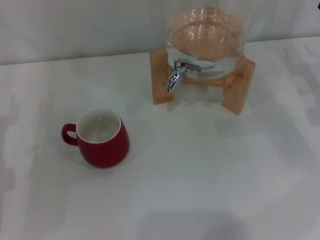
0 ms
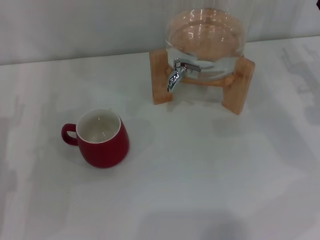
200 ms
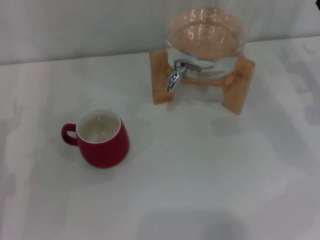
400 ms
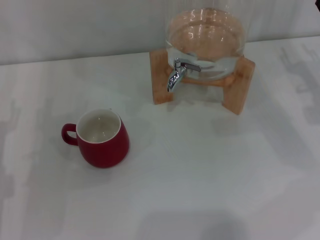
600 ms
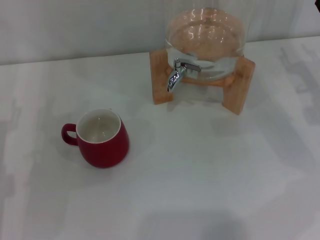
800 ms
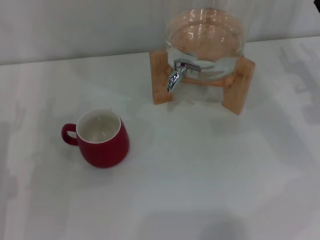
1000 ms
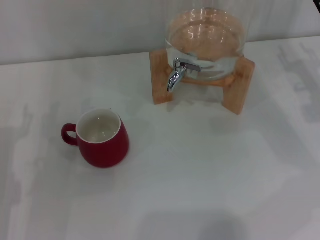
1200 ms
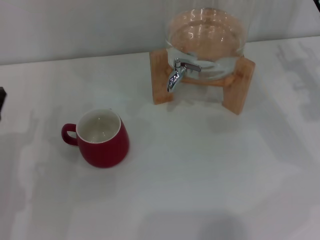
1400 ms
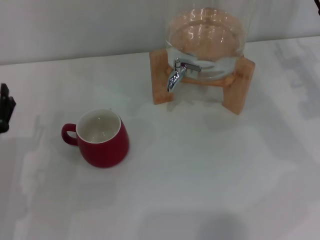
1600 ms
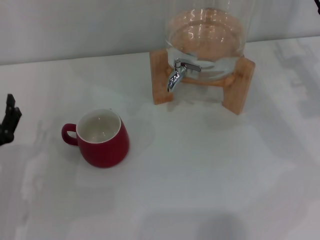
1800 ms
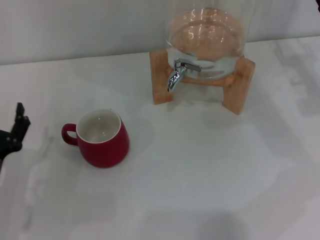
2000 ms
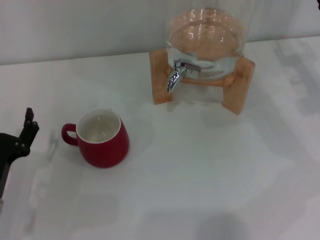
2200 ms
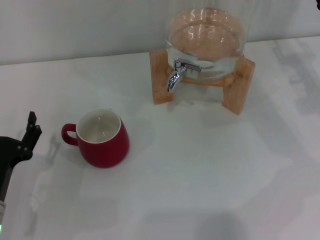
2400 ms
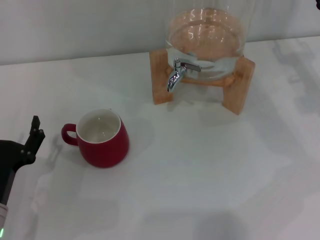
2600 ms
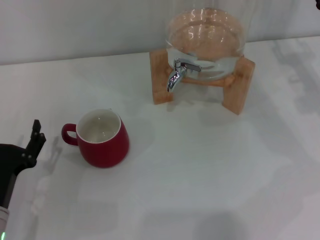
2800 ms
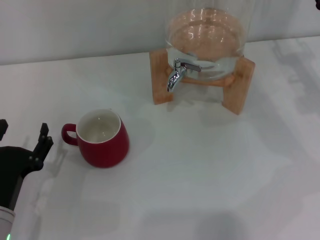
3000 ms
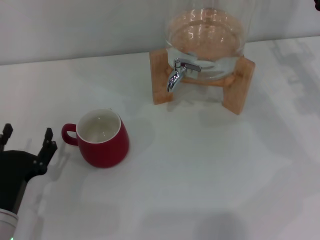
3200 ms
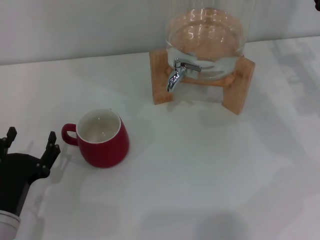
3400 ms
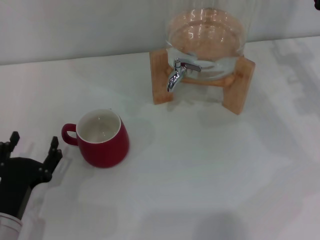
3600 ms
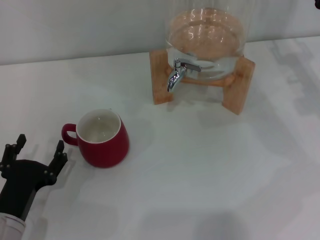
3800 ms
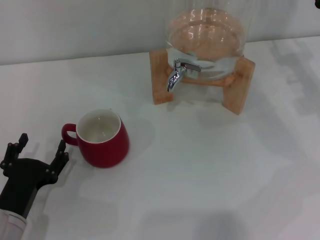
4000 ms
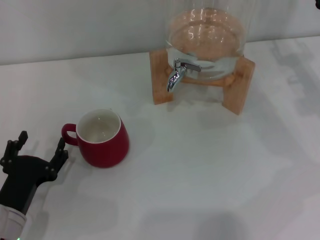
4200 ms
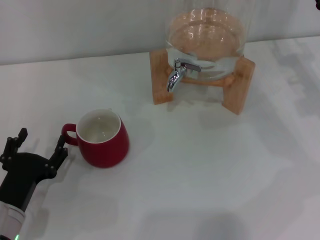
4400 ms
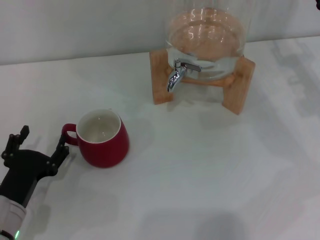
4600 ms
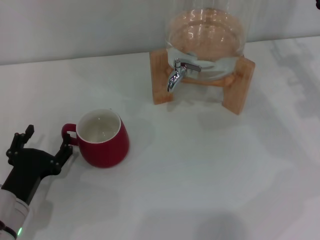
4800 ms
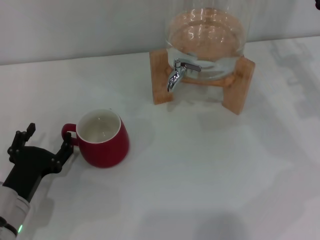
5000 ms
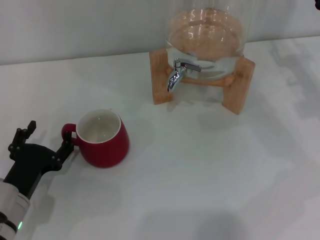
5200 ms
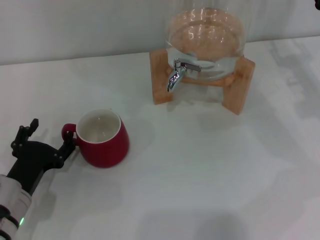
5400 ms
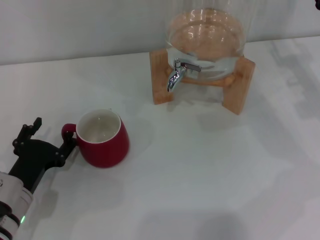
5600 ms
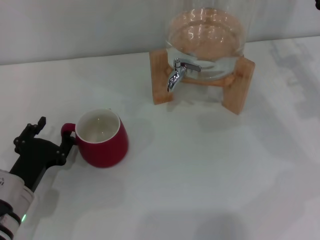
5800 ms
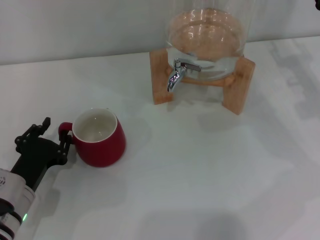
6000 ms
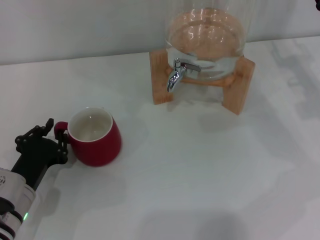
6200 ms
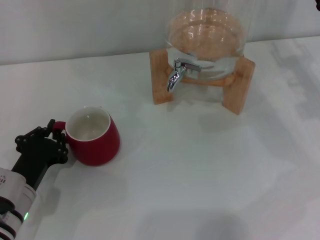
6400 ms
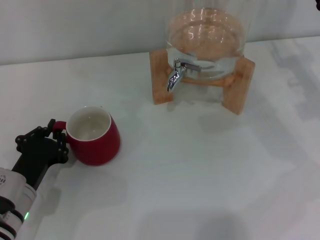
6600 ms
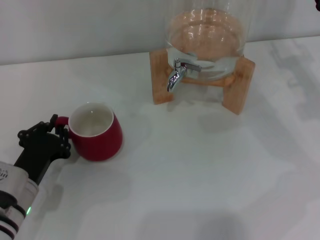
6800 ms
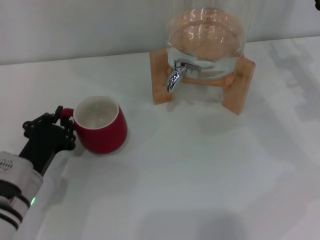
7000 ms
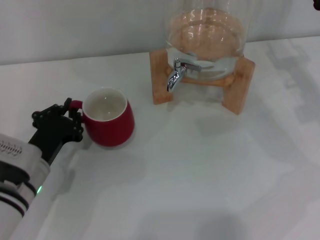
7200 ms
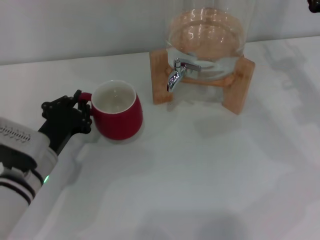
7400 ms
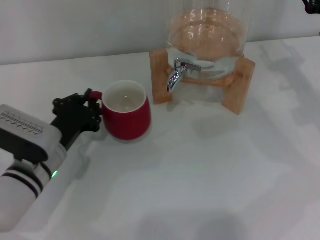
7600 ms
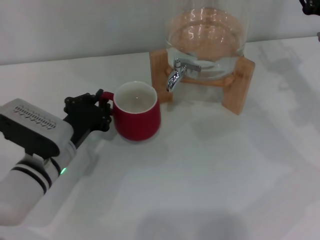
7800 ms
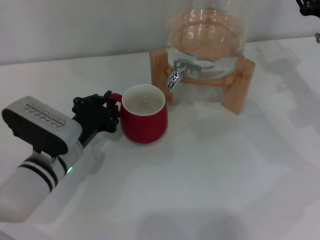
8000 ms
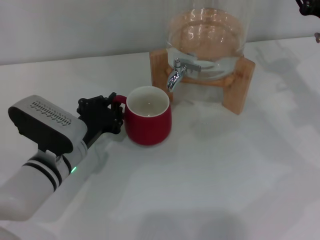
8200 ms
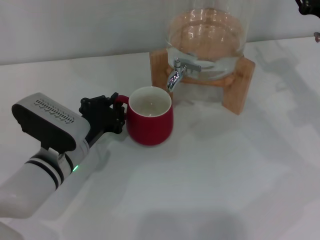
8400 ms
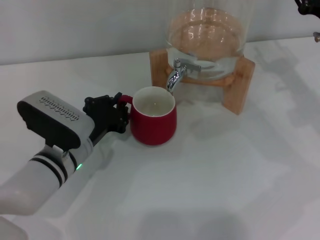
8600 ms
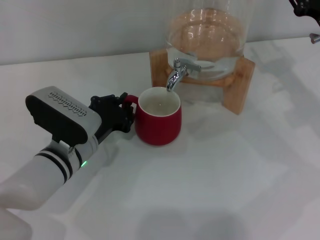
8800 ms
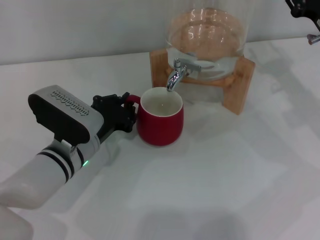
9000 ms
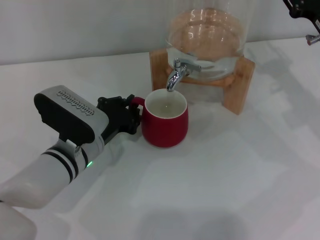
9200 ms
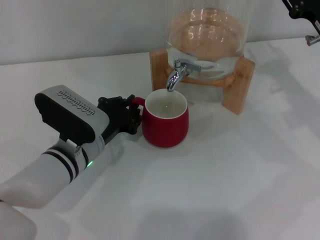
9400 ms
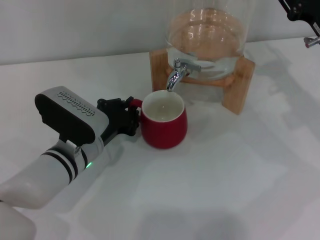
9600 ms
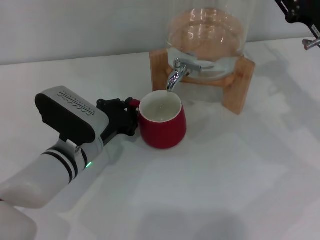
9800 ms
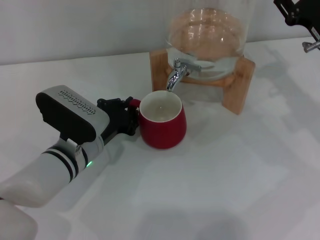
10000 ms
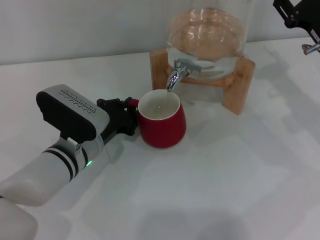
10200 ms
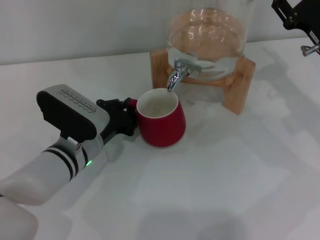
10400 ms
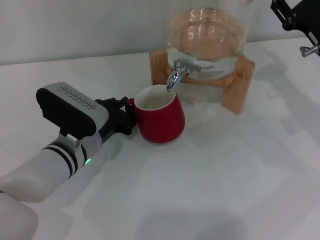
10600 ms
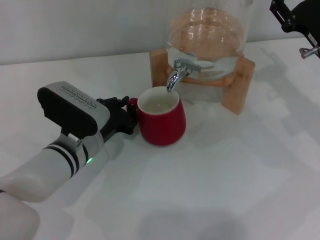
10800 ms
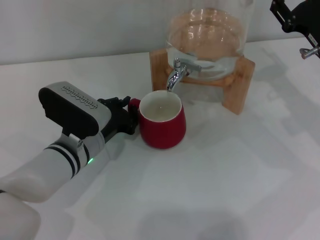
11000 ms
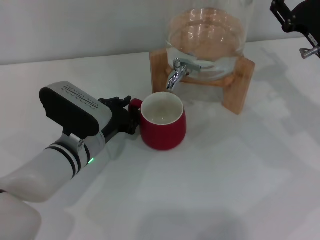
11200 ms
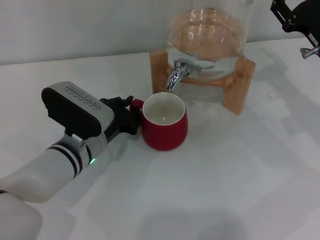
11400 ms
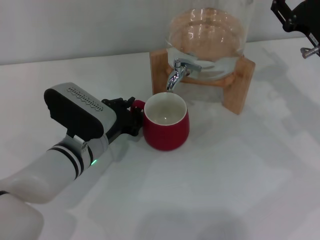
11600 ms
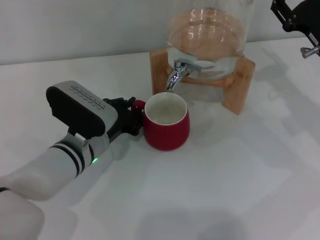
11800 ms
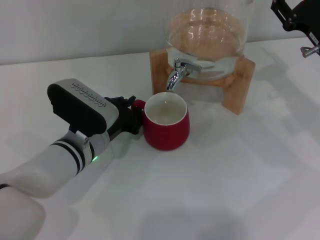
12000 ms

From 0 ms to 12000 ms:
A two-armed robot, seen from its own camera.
Task of the whole recording: the left gripper pick up the red cup and place it horizontally under the faucet, the right gripper turn on the faucet to fill the cup, and then turn off the faucet.
From 0 ms to 1600 ms: The left gripper moves some 5 cm.
From 1600 ms to 3000 ms: The left gripper changes place by about 5 cm.
From 3000 ms to 6000 ms: There are only small adjustments of the grippers.
From 6000 ms to 7600 ms: The left gripper goes roughly 5 cm forward, and closes its fingers.
From 7600 ms to 9000 ms: The left gripper shifts by roughly 5 cm.
From 9000 ms to 10400 ms: Neither gripper changes place.
From 10400 ms to 12000 ms: Both grippers stay put.

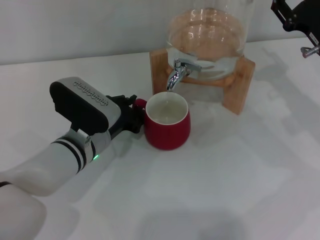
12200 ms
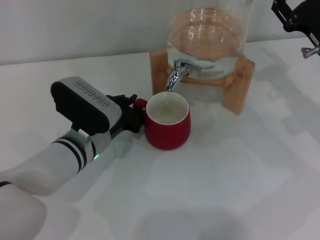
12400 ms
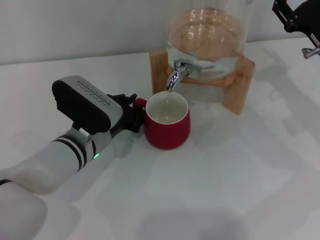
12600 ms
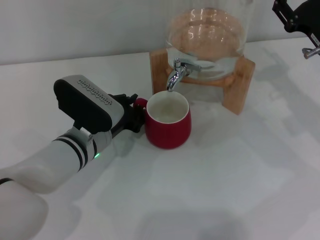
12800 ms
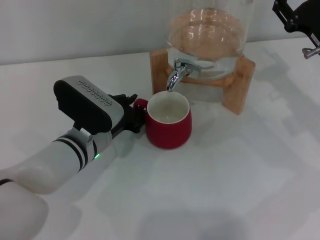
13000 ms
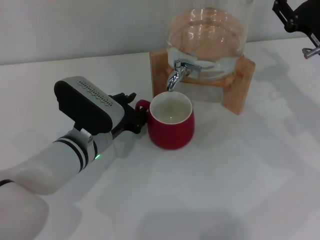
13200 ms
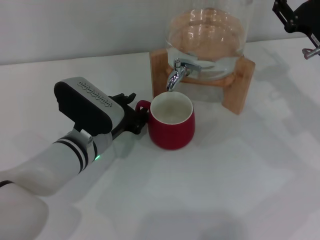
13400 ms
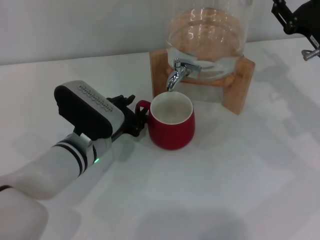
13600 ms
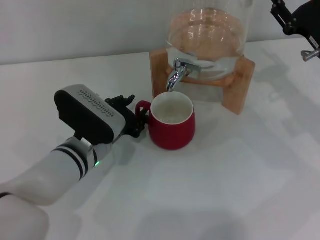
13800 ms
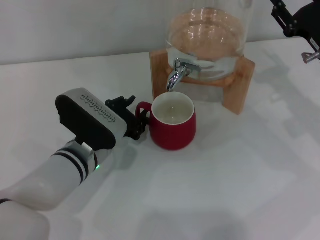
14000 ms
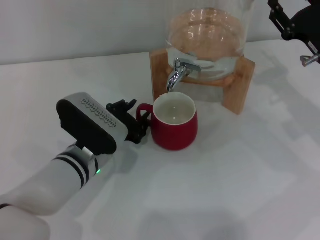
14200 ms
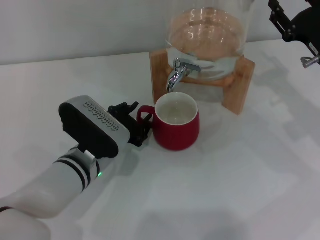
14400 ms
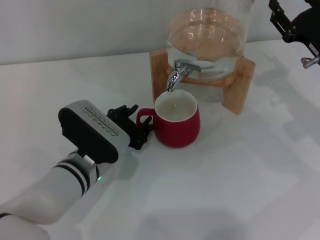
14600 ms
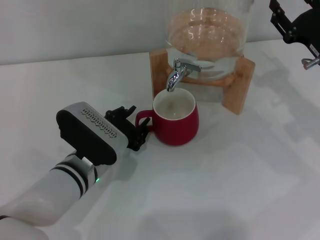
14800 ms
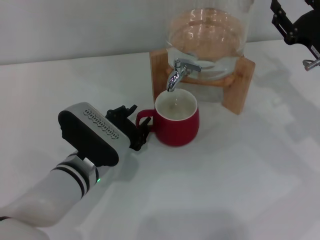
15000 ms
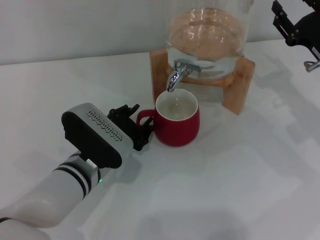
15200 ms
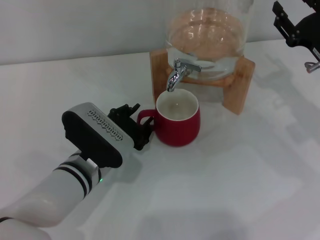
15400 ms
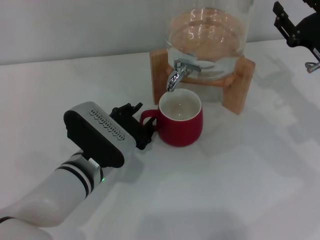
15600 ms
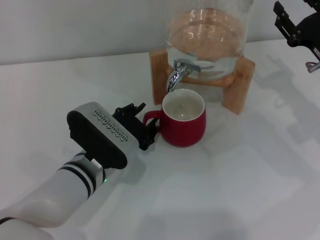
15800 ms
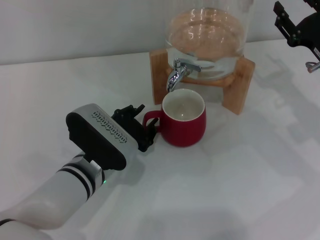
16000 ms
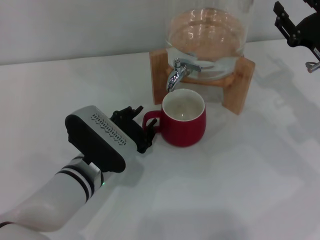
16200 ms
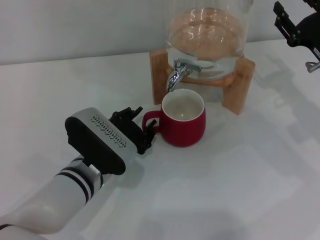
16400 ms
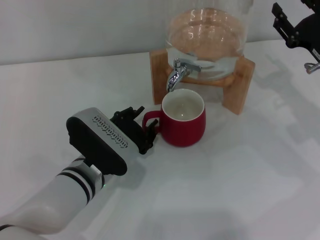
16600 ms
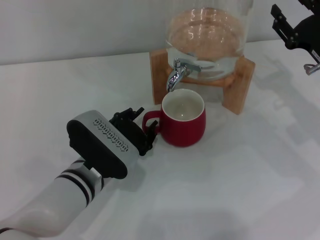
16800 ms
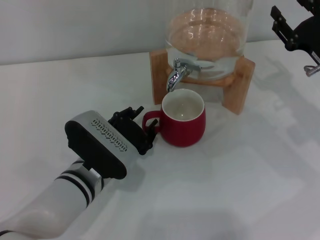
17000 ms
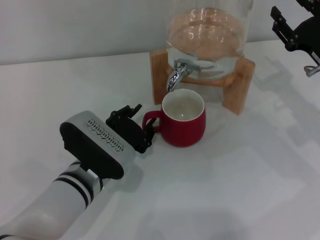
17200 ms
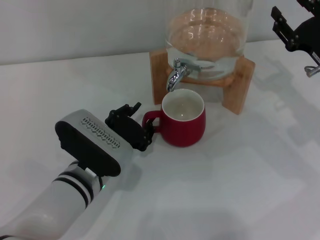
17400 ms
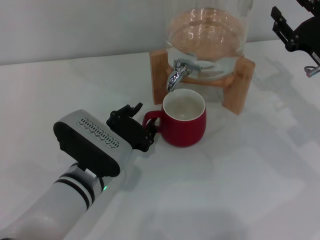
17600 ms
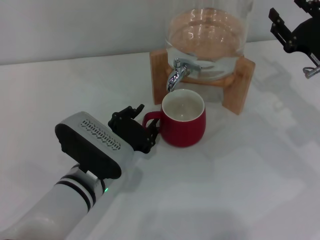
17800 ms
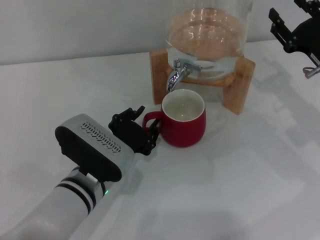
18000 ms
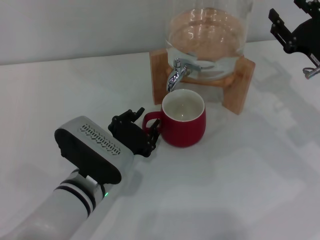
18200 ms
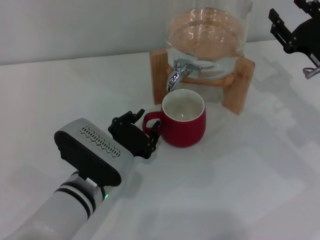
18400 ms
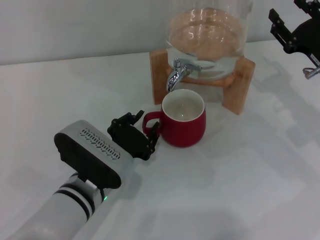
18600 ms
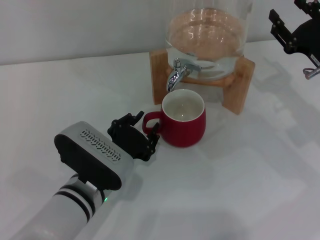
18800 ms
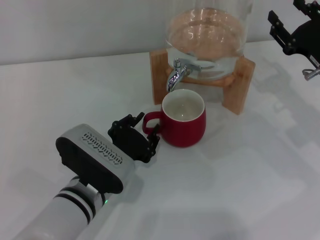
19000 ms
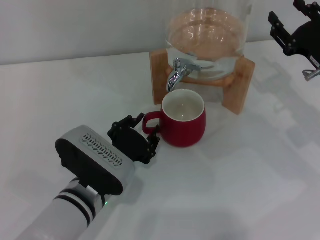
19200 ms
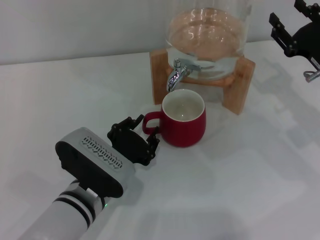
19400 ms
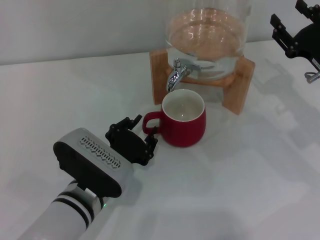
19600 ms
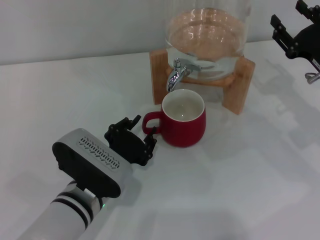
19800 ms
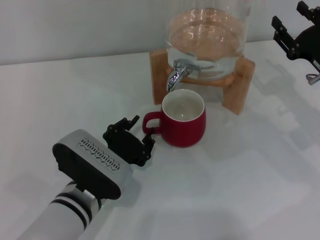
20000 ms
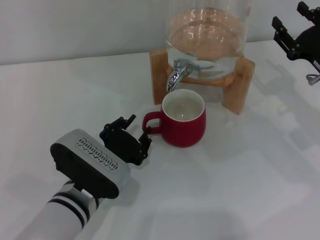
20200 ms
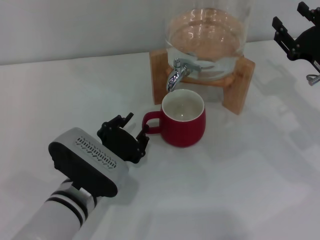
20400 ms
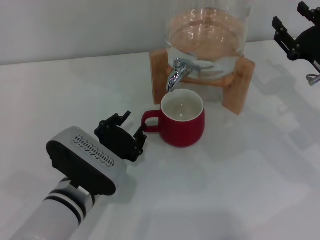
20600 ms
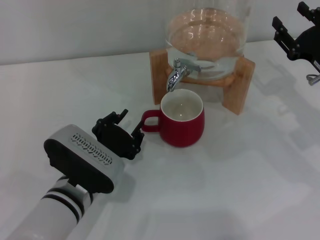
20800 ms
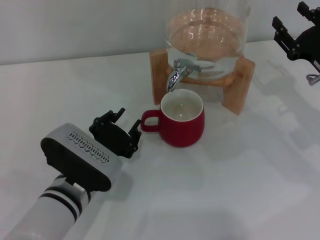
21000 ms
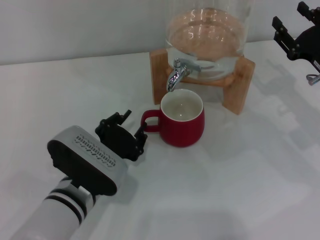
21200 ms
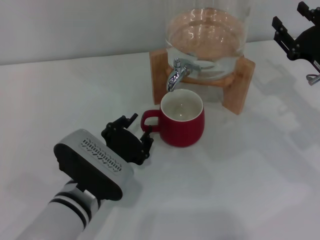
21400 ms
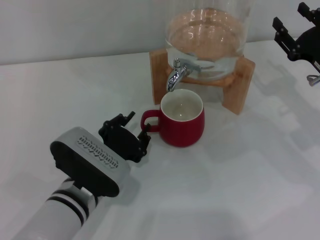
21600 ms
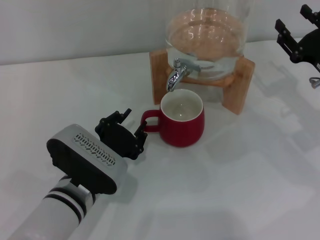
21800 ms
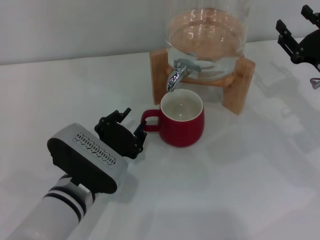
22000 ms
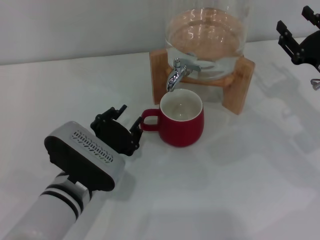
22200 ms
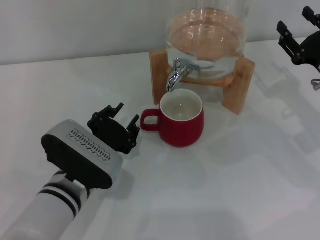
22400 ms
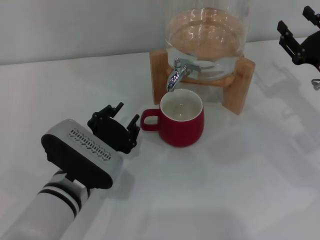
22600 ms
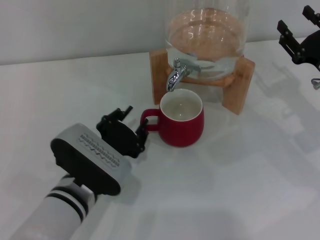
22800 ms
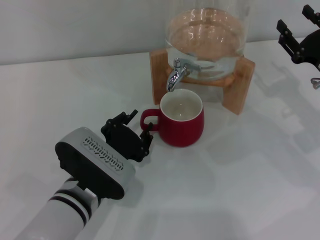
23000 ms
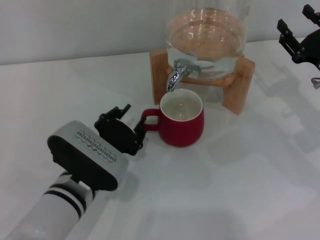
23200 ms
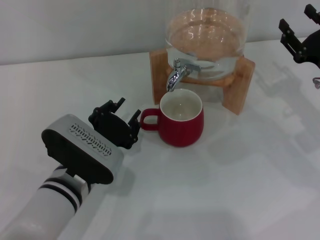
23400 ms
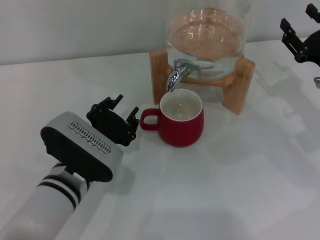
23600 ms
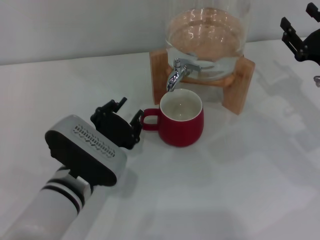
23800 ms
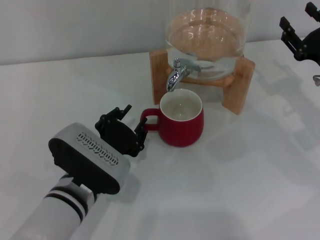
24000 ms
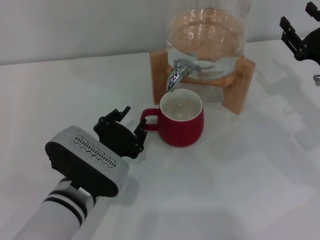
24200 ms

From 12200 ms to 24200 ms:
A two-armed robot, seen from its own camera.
Task of the whole recording: the left gripper pick up the red cup and place it horizontally under the faucet, the right gripper turn on the faucet to fill the cup, and then turn off the faucet.
Step, from 12200 ms to 19400 ms: Move the cup beneath the water dispenser nozzle with the left gripper.
From 12200 ms to 13800 ms: Both grippers stay put.
From 13800 ms to 15200 ms: The grippers stay close to where they were, moving slightly.
From 15200 ms to 16600 ms: Neither gripper changes place.
From 16600 ms to 21200 ms: The grippers stay close to where they were, moving slightly.
From 21200 ms to 22600 ms: Both grippers stay put.
From 22600 ms to 24200 ms: The grippers stay close to where they were, moving slightly.
